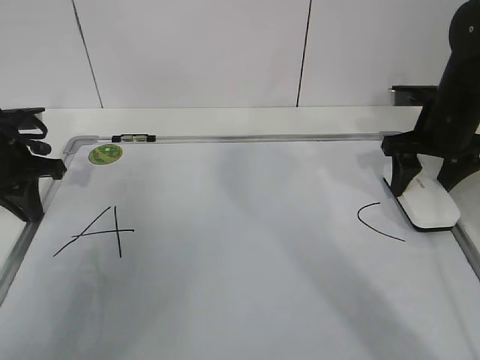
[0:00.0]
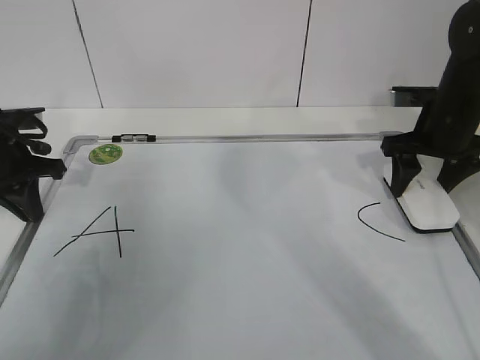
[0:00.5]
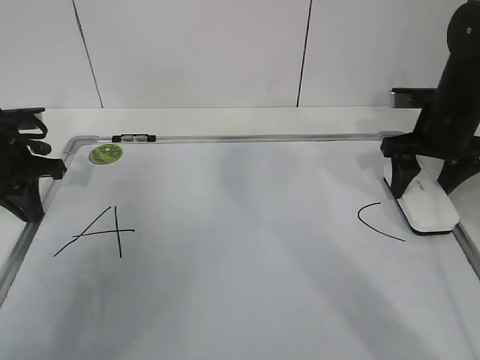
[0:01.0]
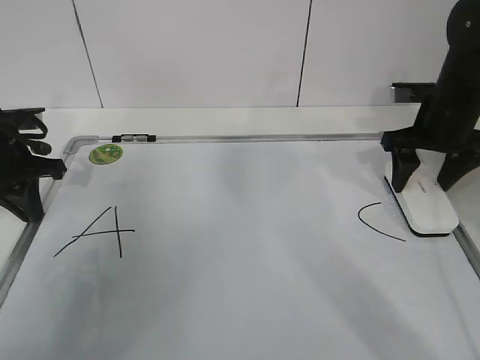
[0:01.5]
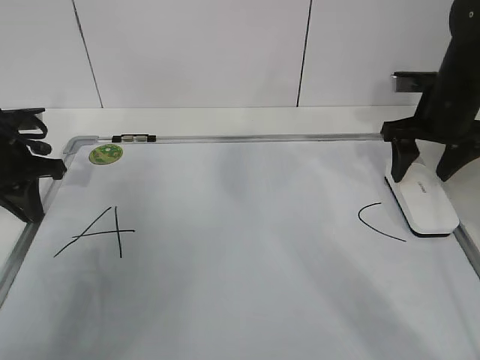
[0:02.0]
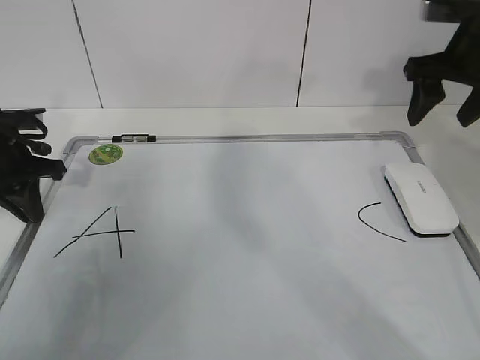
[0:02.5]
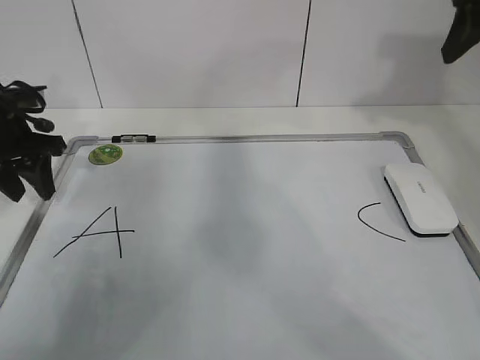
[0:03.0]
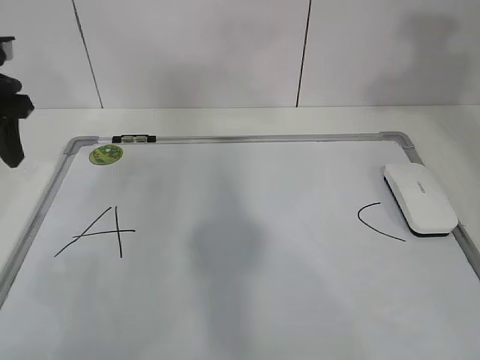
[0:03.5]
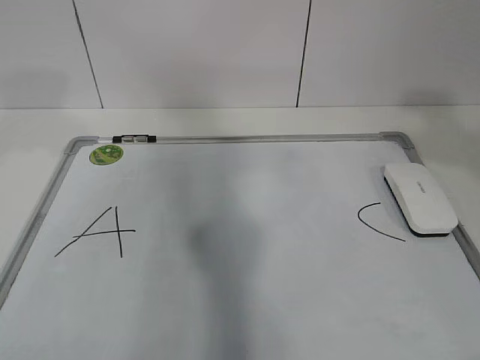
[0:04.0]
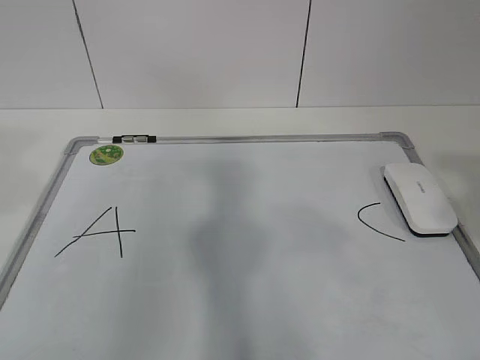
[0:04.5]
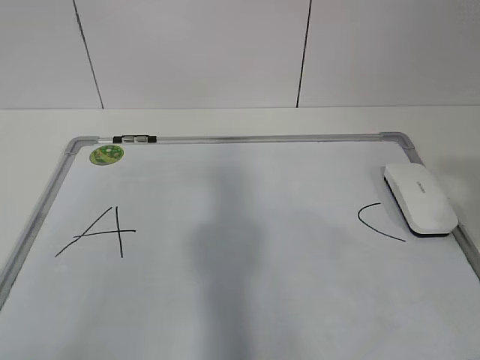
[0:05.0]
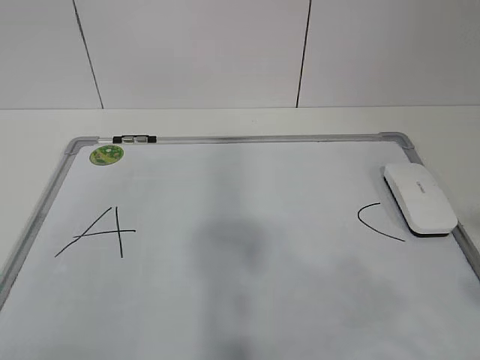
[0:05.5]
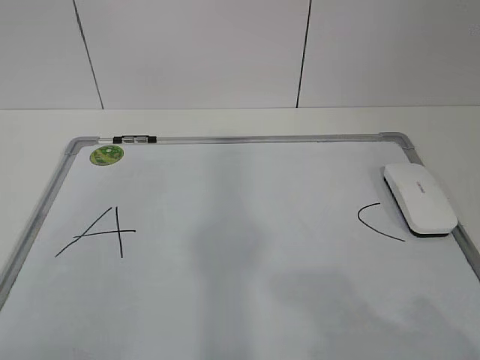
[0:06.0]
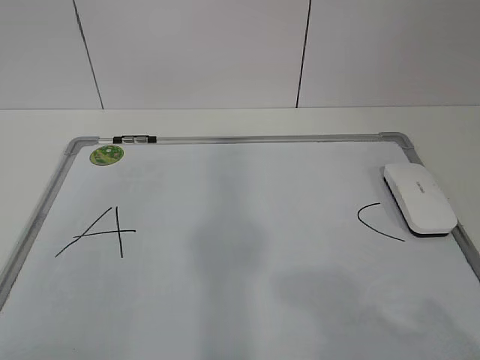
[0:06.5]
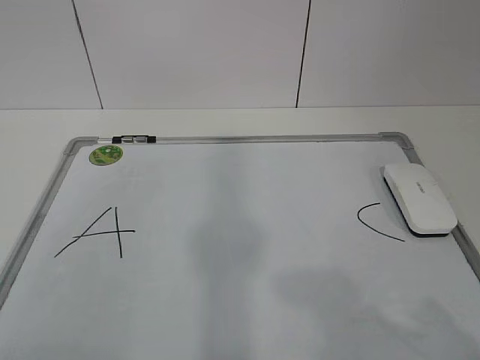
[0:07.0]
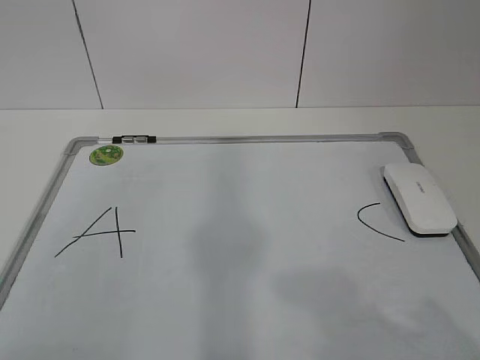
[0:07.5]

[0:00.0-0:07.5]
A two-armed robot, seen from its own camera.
Task of the whole recording: pick up the eraser on the blackboard and erase the letter "B".
0:00.0 to 0:02.0: The grippers make only small movements.
0:02.0 to 0:04.0: The left gripper travels upward and backward by roughly 25 cm, and opens its fingers; the right gripper moves backward and upward, some 35 cm.
0:04.0 to 0:05.5: The right gripper heads backward and downward, covering about 20 cm. Meanwhile the left gripper shifts approximately 30 cm backward.
0:05.5 to 0:07.5: The right gripper shifts some 10 cm downward.

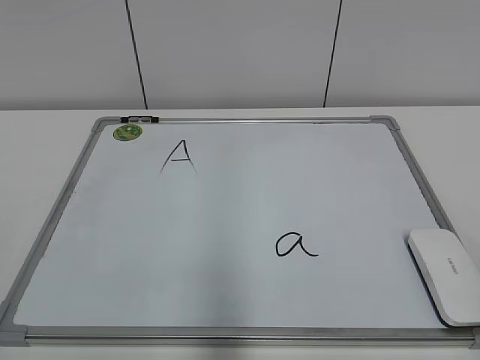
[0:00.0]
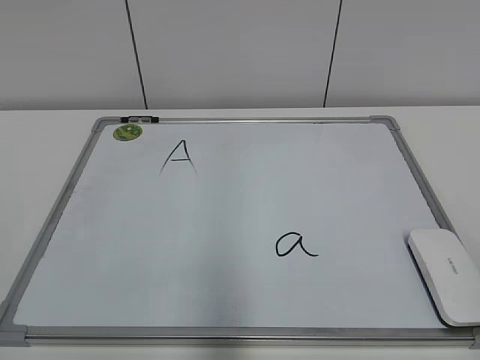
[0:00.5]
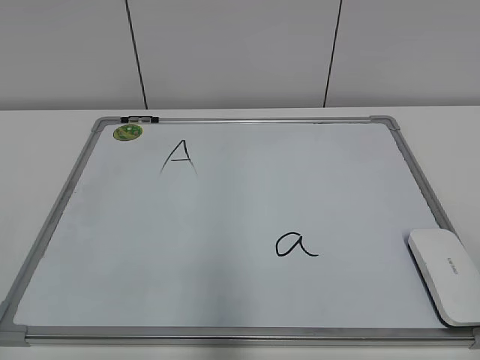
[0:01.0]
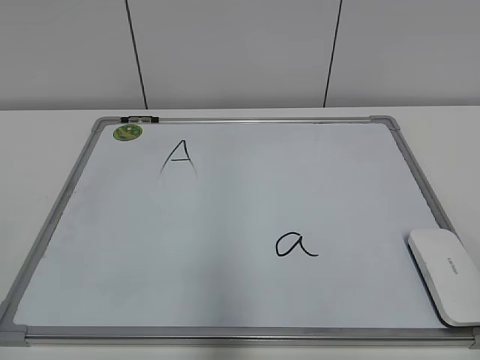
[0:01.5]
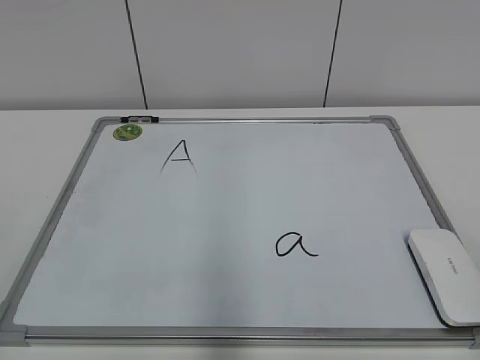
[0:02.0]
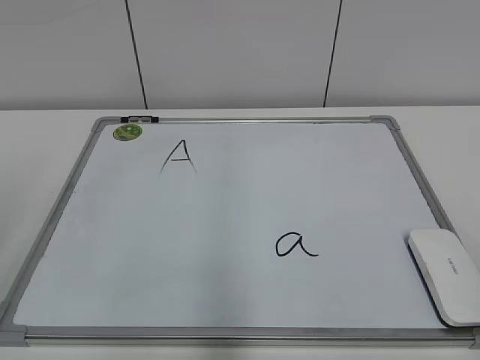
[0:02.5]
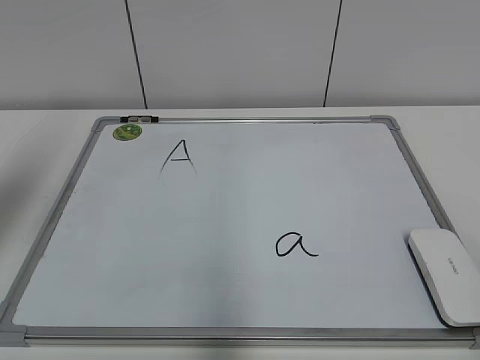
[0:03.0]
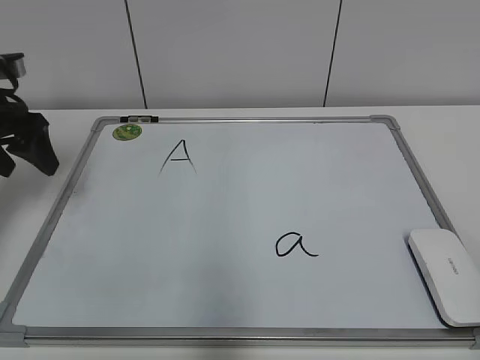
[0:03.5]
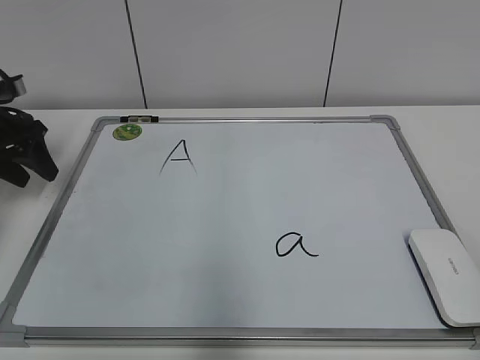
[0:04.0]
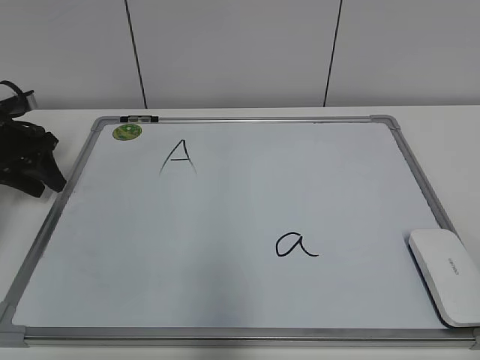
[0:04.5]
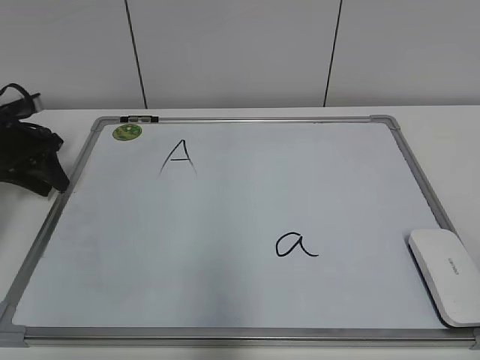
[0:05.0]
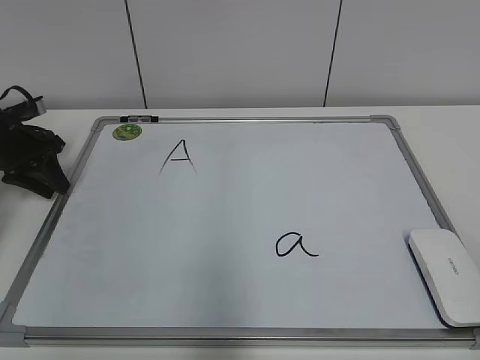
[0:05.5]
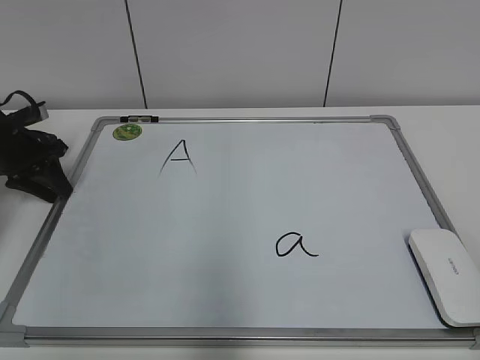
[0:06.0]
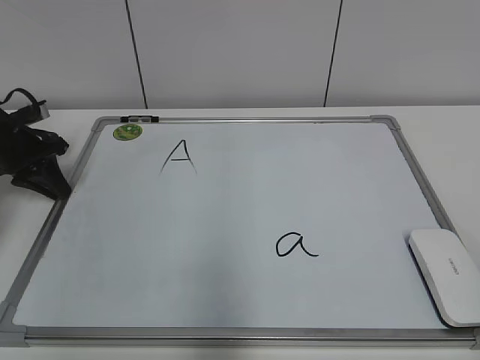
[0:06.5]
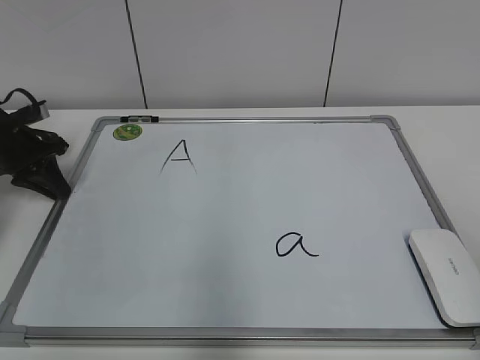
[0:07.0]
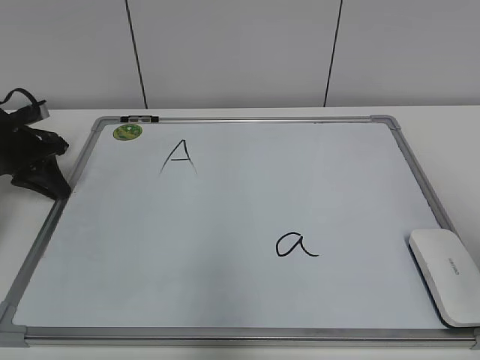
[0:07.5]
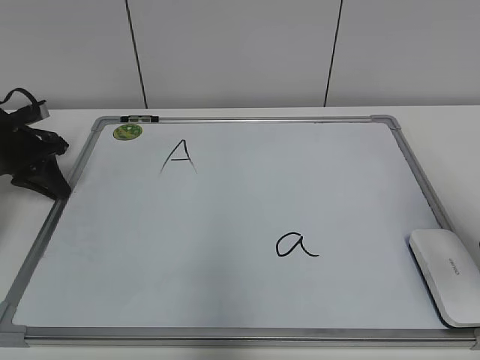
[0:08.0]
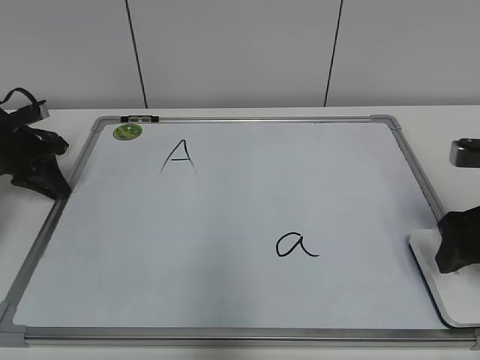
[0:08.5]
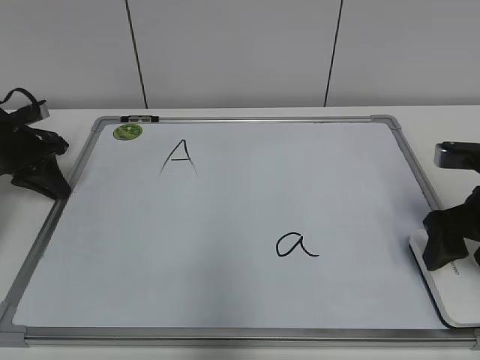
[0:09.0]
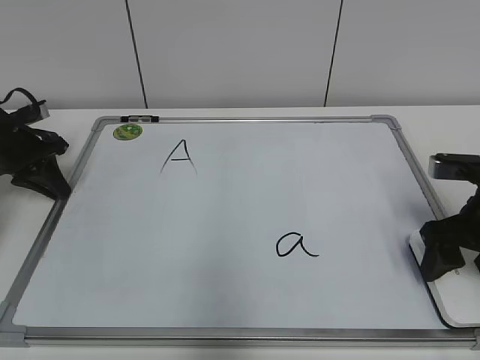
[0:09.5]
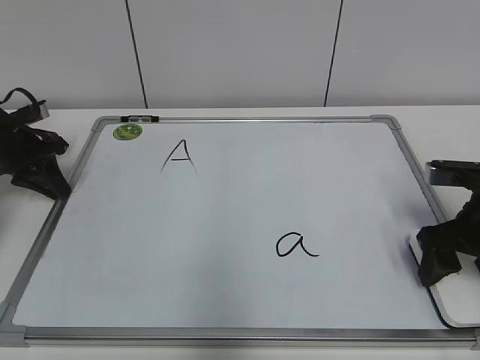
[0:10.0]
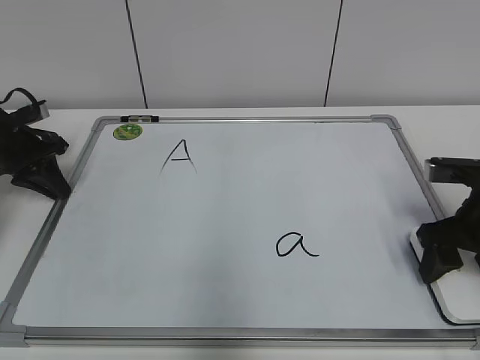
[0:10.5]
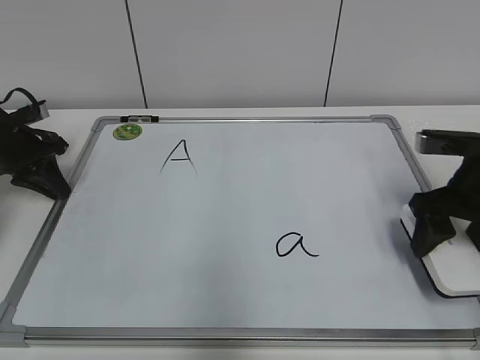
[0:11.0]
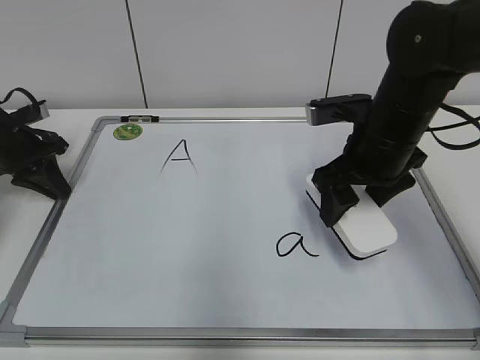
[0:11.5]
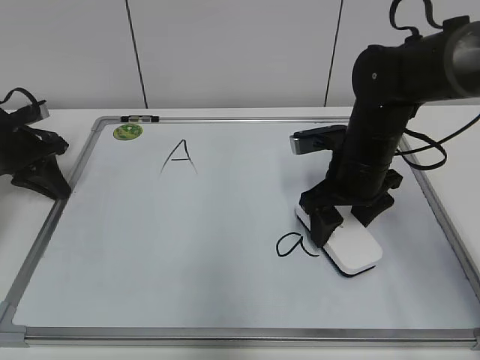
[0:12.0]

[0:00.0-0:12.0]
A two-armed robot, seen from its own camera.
Task of the whole recording: pick up the eraser on the blackboard and erase the letter "a".
Step, 0:00.0 to 0:06.0: Hold the drawing board steady with your left hand.
Step, 0:06.5 to 0:10.0: Grab the eraser with your right hand.
0:02.0 to 0:04.0: The left gripper moves forward, about 40 cm.
0:04.0 to 0:06.0: The left gripper goes approximately 5 cm downward, and closes up.
0:06.0 to 0:08.0: The right gripper moves forward, approximately 20 cm.
0:08.0 to 0:10.0: The right gripper shifts about 15 cm downward and forward.
0:10.0 to 0:12.0: The right gripper shifts roughly 15 cm to the left and forward.

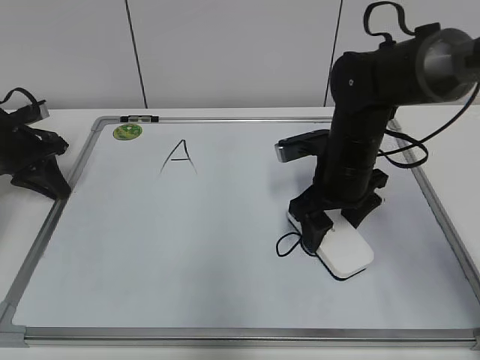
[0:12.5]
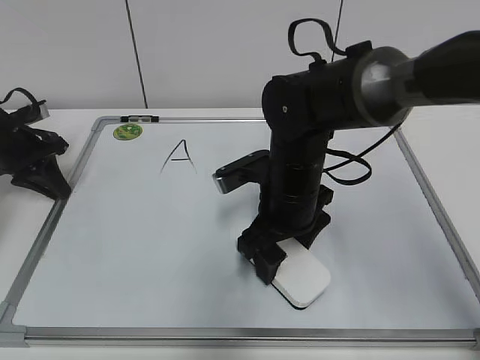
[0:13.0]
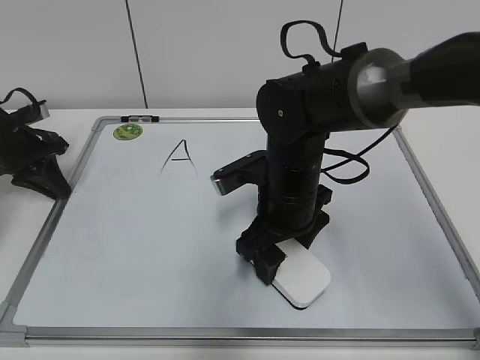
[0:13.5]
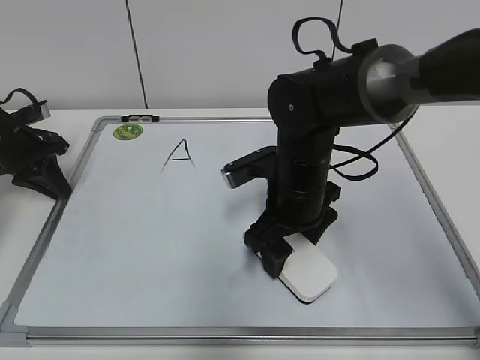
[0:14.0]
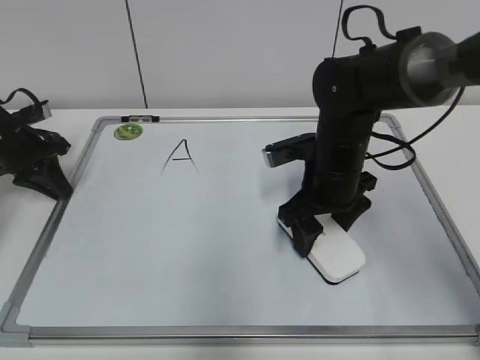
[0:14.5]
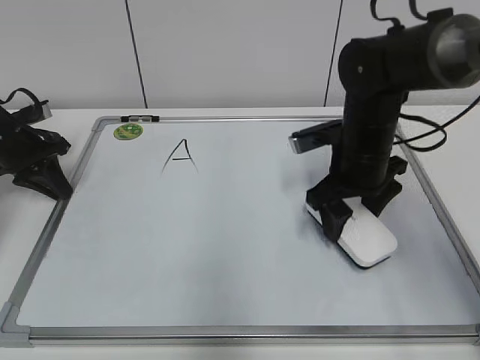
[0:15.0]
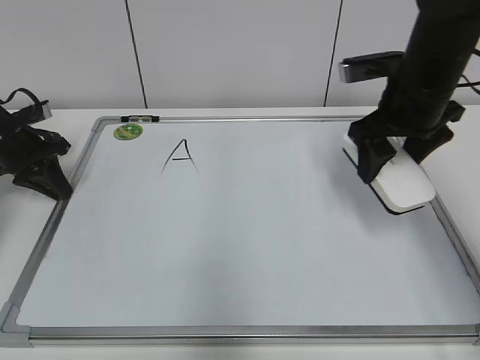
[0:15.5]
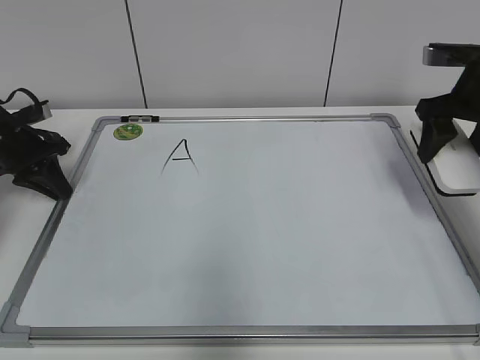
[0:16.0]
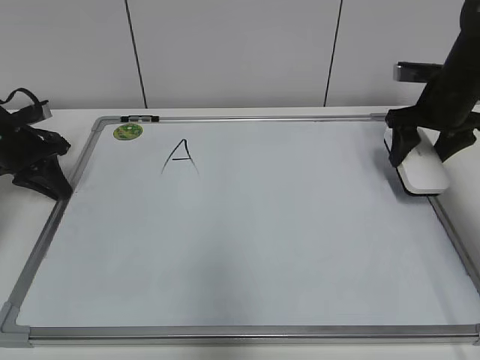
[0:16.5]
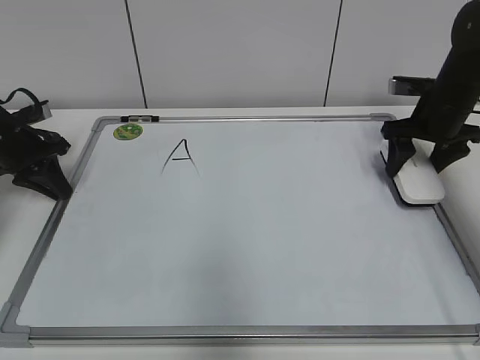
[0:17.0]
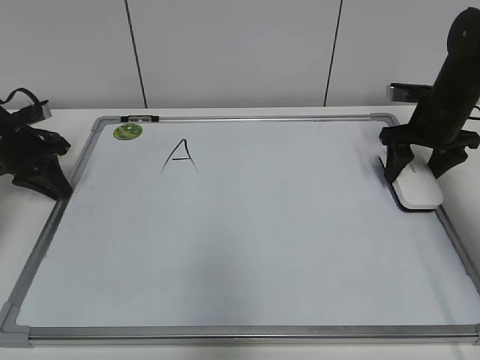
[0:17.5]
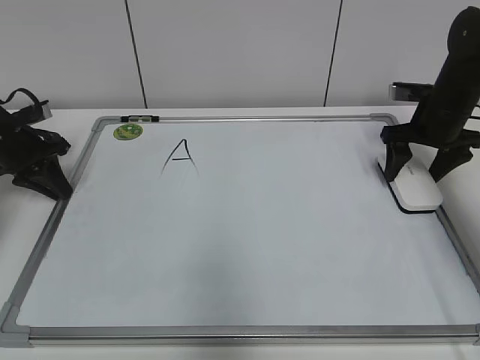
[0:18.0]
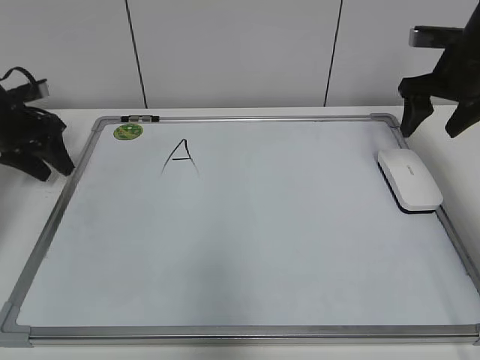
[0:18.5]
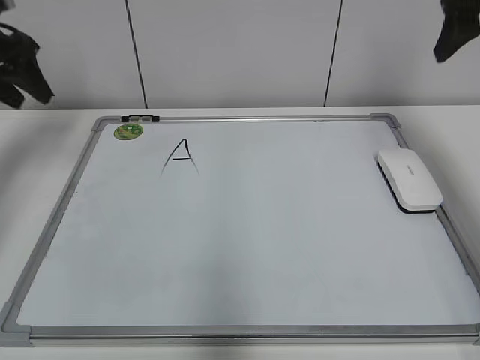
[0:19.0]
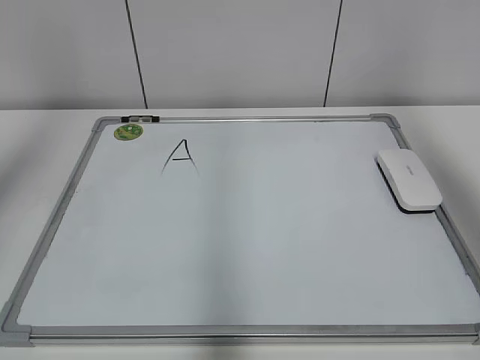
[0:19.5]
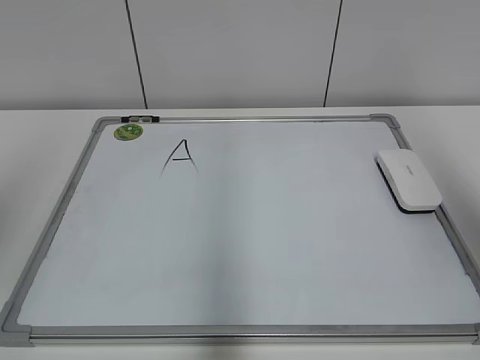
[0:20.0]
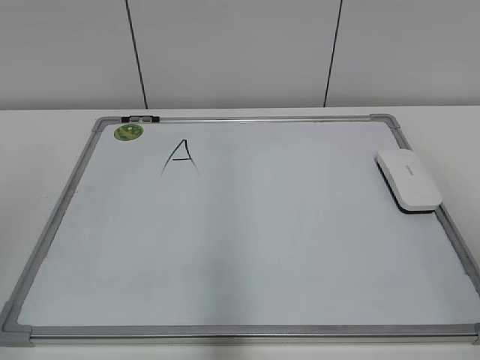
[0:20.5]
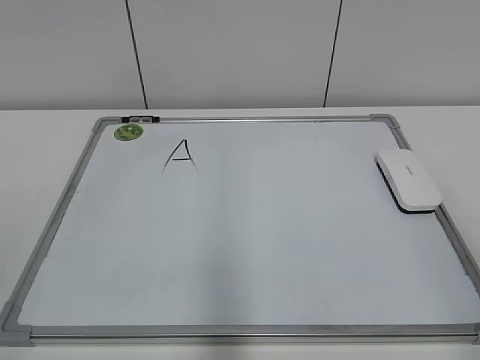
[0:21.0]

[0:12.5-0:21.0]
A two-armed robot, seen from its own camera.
Task of the whole recording: pick up the eraser on the blackboard and erase the letter "a".
Step, 0:12.5 to 0:14.5: Erase the letter a with your right hand.
Step, 0:15.0 to 0:17.5: Put down the eraser with your right hand.
0:14.5 to 0:16.5: The right gripper goes roughly 20 cm to the right and forward.
0:16.5 to 0:19.0: The grippers both shift upward by some 15 cm. The left gripper opens its fingers.
0:19.0 to 0:21.0: The grippers both shift backward by some 40 cm.
